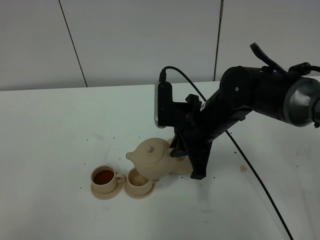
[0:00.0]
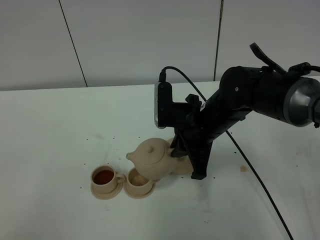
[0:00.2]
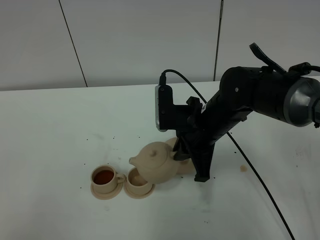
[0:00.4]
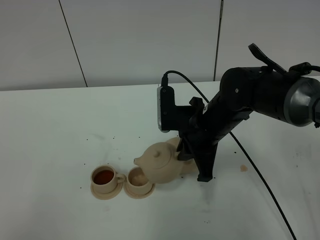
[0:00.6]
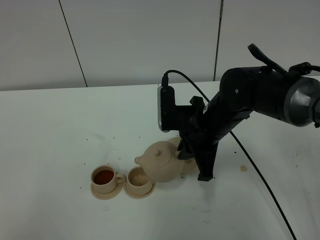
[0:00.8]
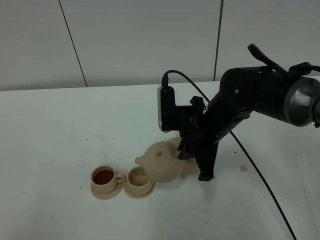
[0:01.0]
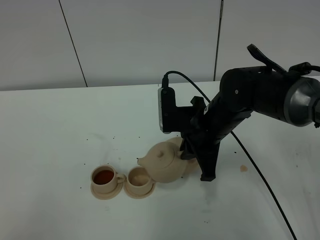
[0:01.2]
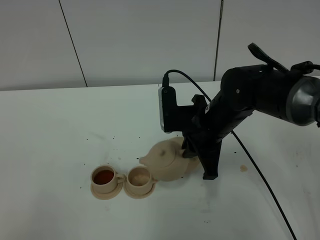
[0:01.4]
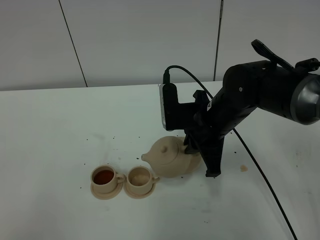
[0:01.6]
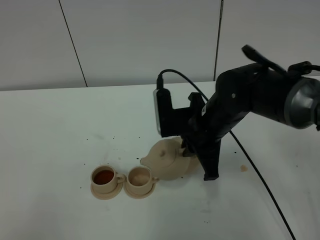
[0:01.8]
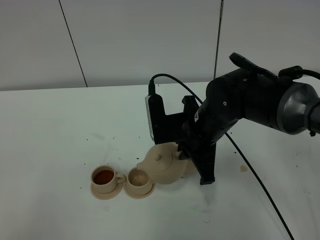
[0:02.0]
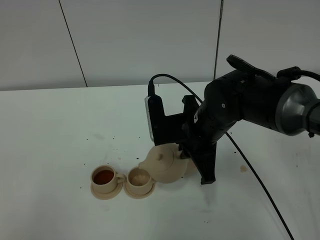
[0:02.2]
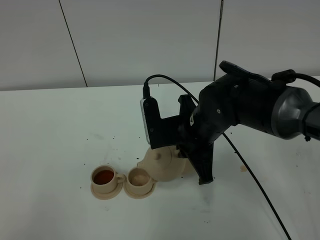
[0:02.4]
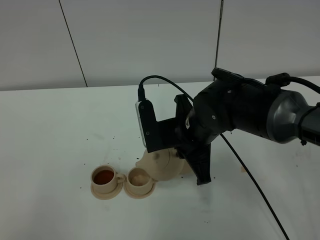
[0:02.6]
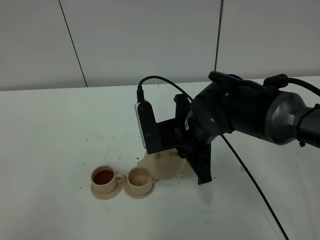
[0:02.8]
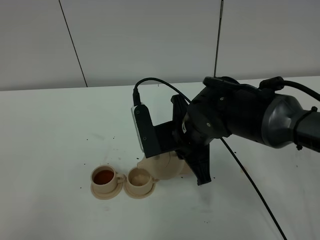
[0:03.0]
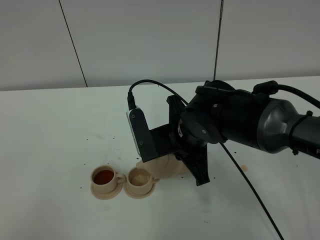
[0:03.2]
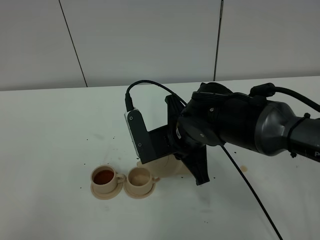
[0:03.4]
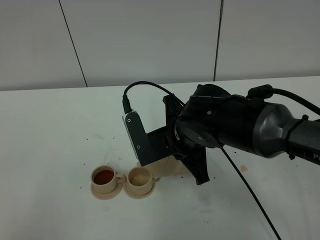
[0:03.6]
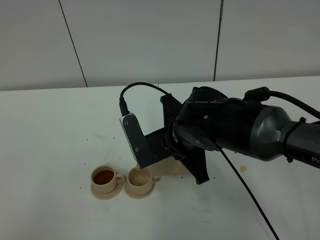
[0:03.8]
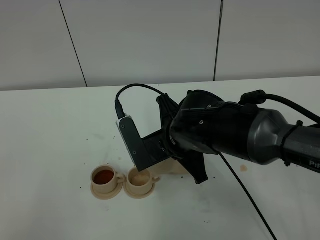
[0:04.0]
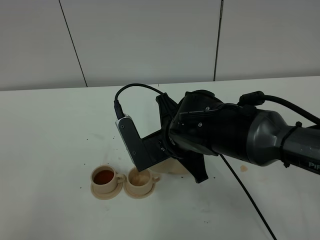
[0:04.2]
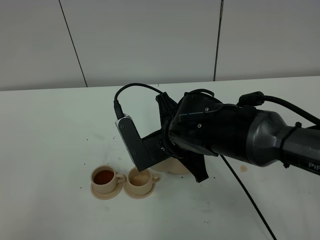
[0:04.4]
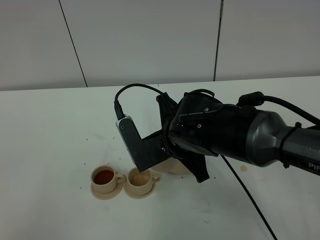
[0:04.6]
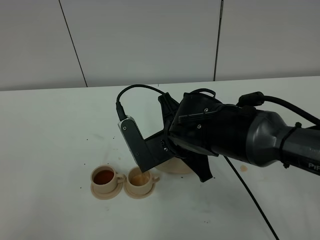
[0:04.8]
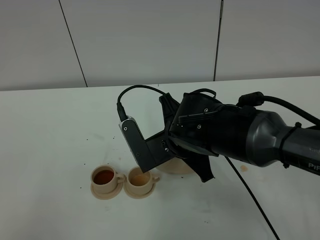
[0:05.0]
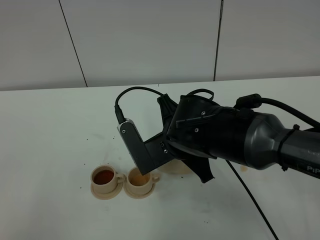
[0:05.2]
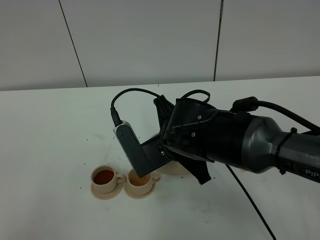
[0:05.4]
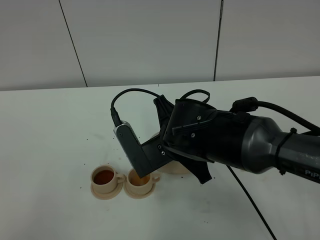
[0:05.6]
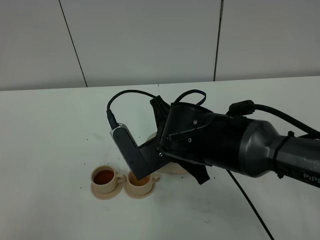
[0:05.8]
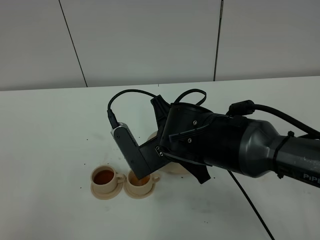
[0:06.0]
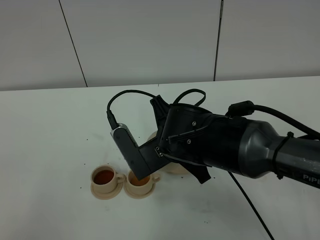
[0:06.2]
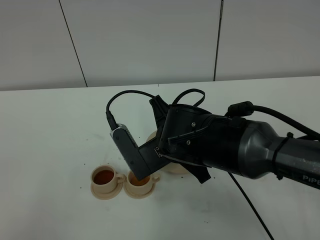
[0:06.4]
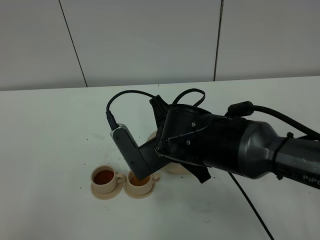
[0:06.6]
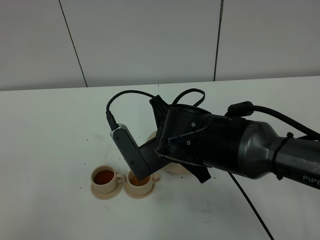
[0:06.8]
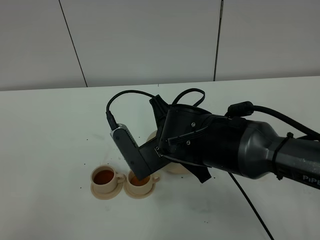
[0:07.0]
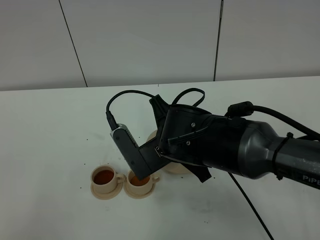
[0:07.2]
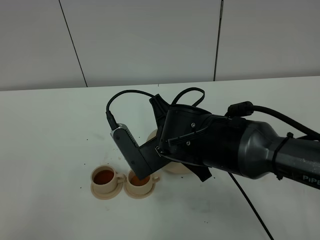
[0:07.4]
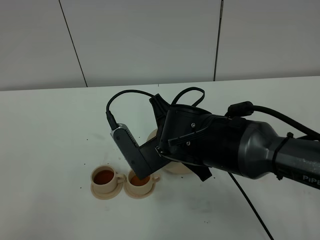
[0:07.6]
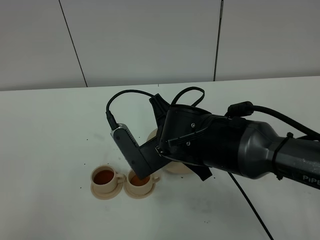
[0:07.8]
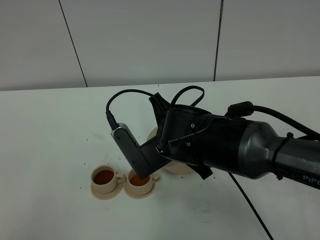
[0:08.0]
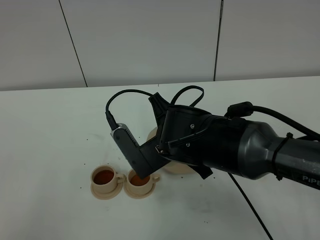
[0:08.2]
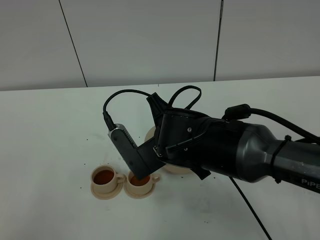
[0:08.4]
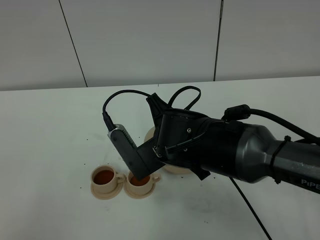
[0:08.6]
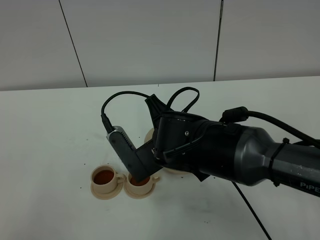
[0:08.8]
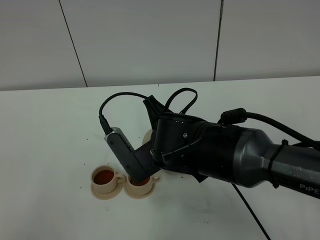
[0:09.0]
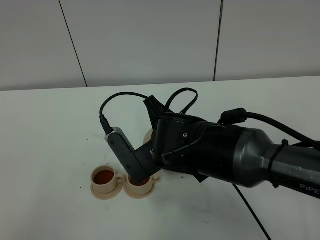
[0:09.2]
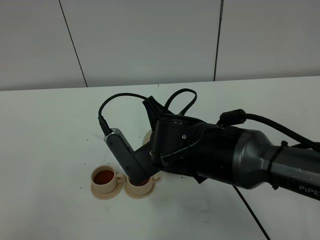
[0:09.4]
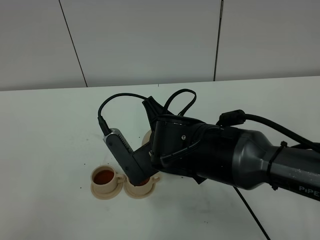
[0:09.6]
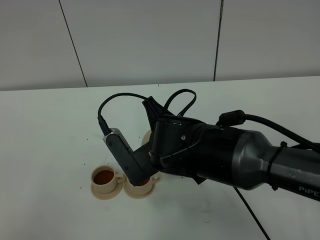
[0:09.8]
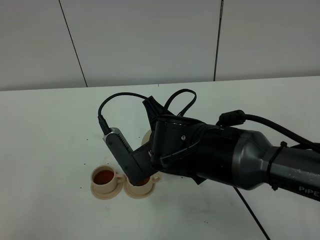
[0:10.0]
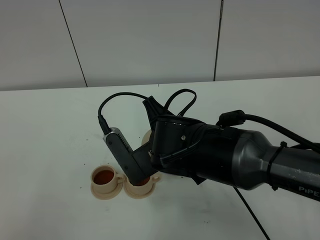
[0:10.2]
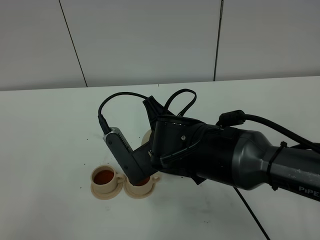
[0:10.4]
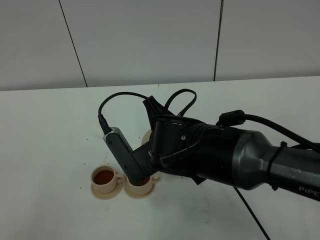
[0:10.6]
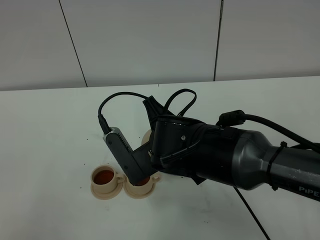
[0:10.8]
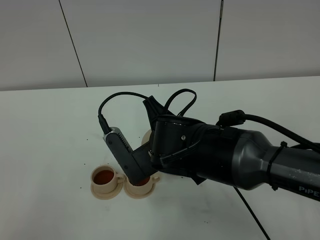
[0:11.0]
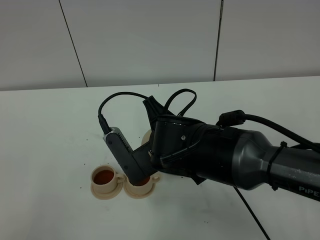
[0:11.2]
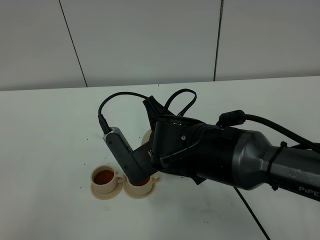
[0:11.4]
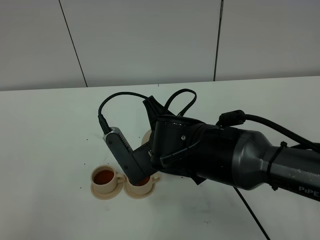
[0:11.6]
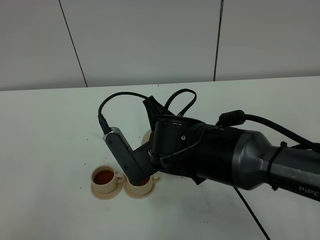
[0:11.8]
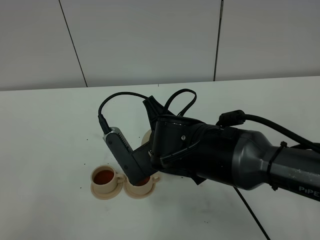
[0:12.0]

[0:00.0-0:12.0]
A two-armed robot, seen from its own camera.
Task of the whole recording: grasp the brown teapot and pour the tea into the two brown teacups one by one, put the brown teapot back in its original place.
0:00.0 to 0:01.6: The grippers stay close to where they were, moving slightly.
0:01.6 to 0:03.0: The right gripper shifts by about 5 cm.
0:03.0 to 0:04.4: The grippers stay close to where they were, moving slightly.
0:04.4 to 0:06.0: The grippers make only small movements.
0:06.0 to 0:07.6: Both grippers stay put.
0:07.6 to 0:09.0: The two grippers keep their place.
0:09.0 to 0:12.0: Neither gripper changes place.

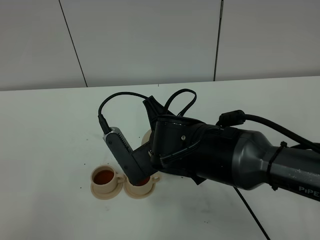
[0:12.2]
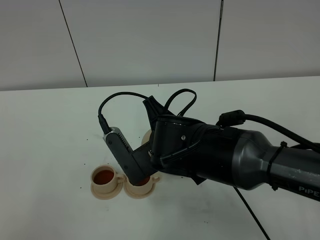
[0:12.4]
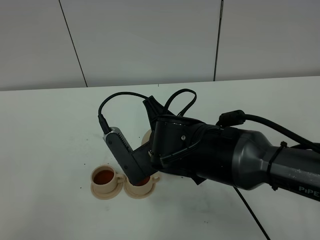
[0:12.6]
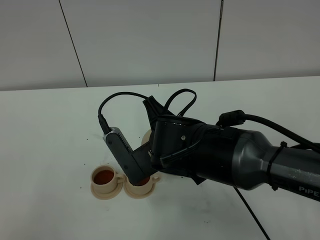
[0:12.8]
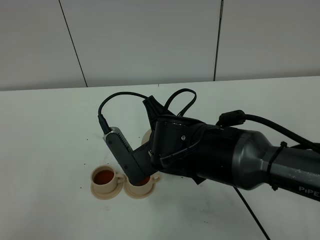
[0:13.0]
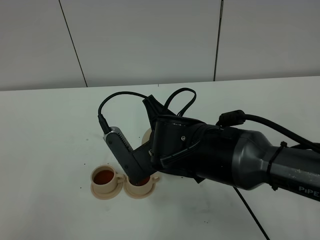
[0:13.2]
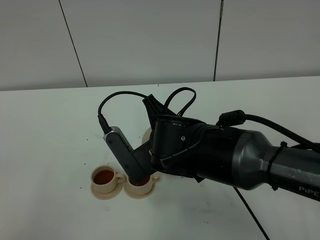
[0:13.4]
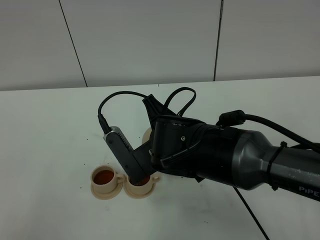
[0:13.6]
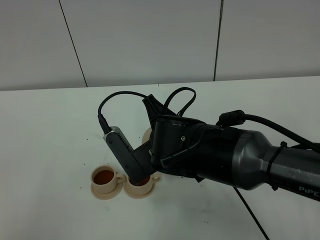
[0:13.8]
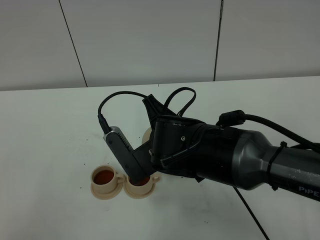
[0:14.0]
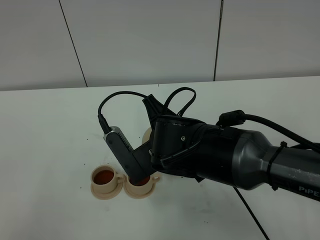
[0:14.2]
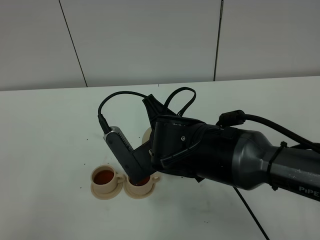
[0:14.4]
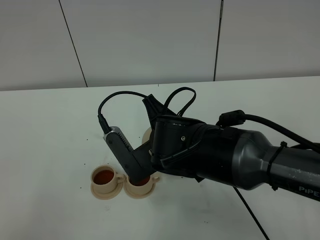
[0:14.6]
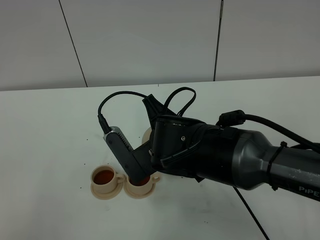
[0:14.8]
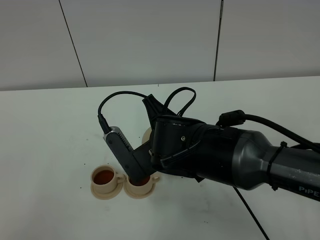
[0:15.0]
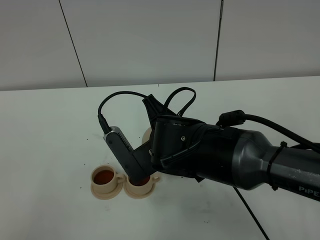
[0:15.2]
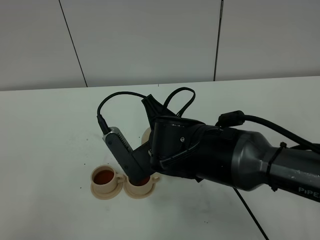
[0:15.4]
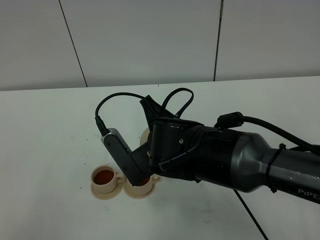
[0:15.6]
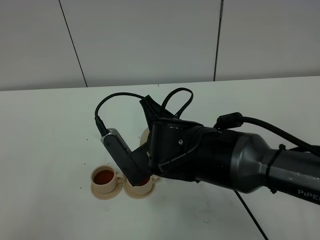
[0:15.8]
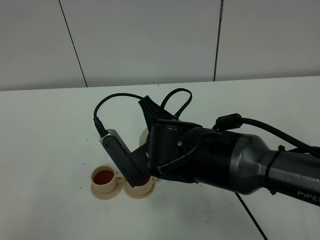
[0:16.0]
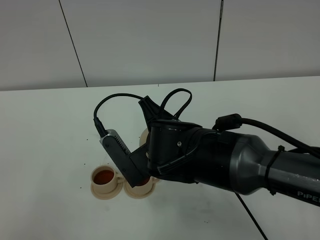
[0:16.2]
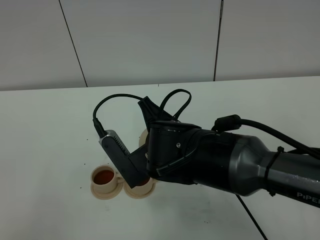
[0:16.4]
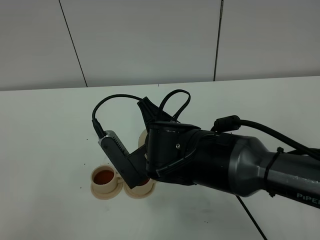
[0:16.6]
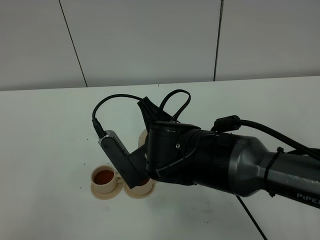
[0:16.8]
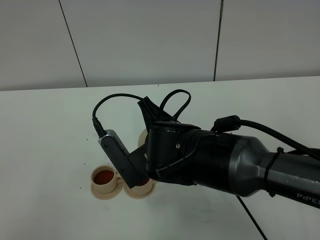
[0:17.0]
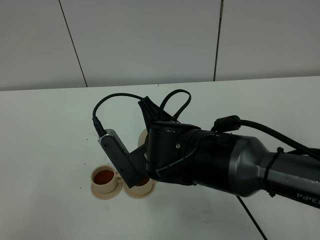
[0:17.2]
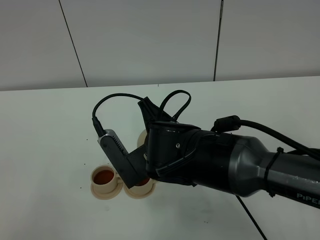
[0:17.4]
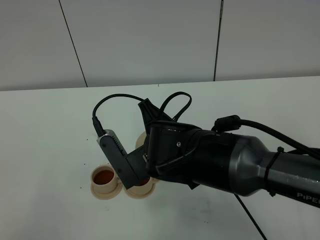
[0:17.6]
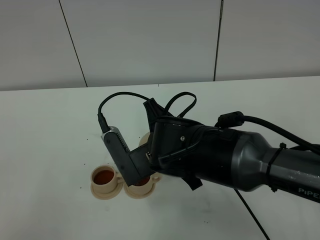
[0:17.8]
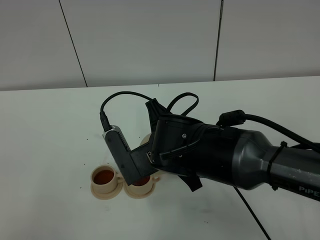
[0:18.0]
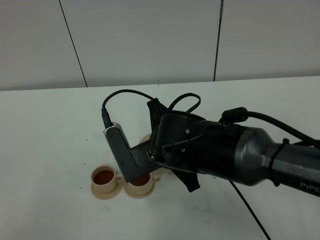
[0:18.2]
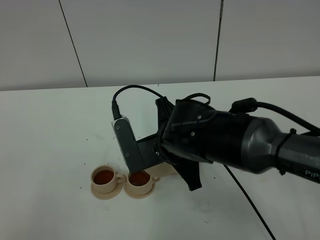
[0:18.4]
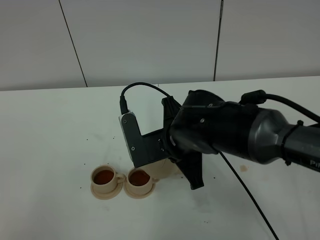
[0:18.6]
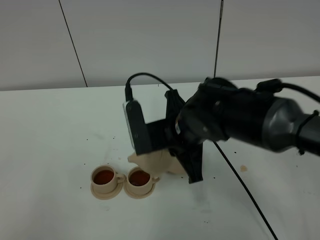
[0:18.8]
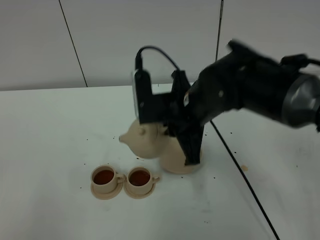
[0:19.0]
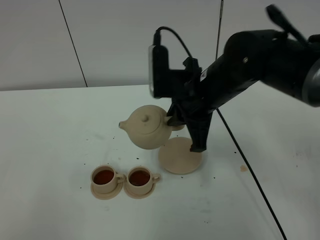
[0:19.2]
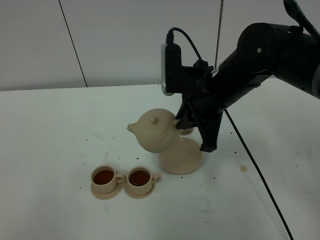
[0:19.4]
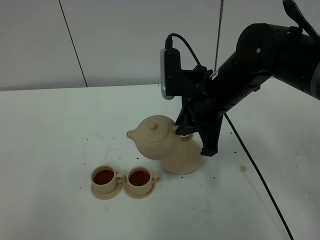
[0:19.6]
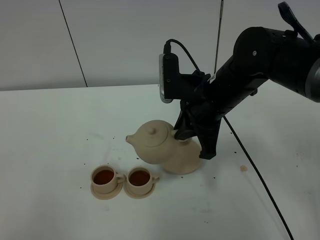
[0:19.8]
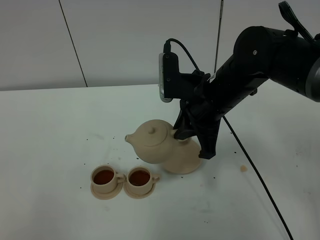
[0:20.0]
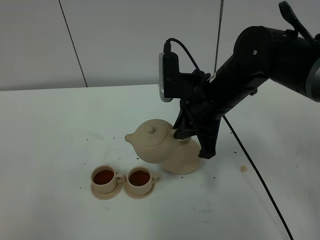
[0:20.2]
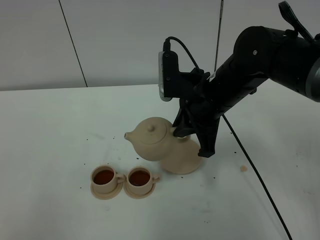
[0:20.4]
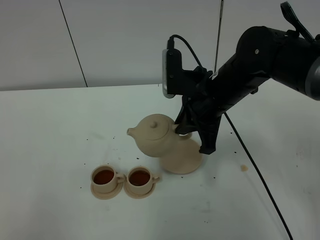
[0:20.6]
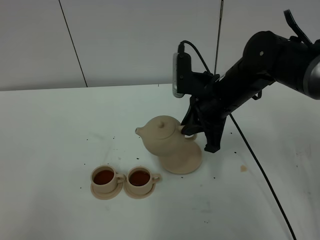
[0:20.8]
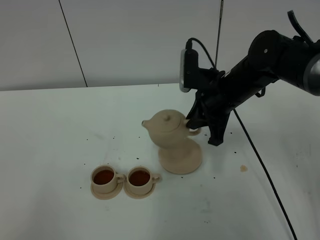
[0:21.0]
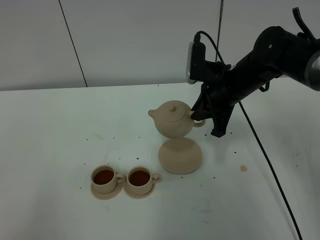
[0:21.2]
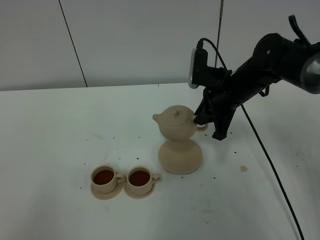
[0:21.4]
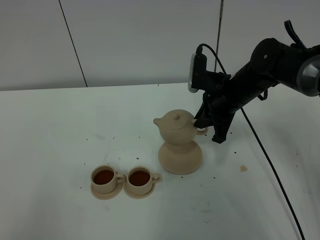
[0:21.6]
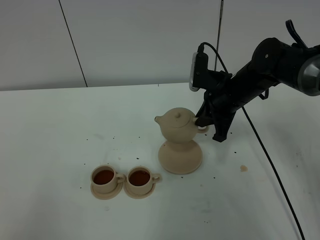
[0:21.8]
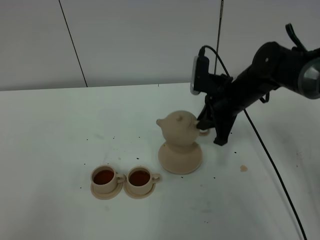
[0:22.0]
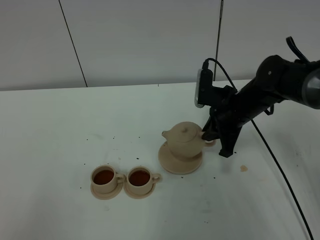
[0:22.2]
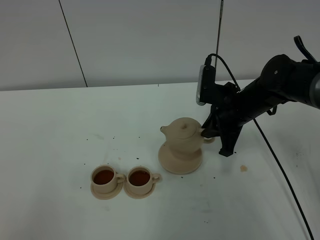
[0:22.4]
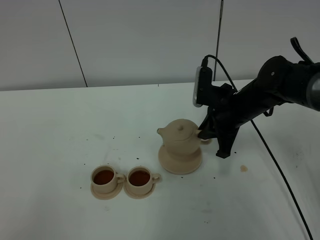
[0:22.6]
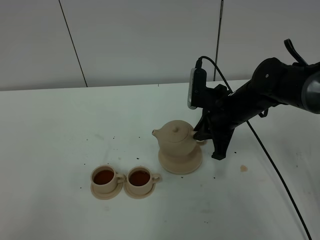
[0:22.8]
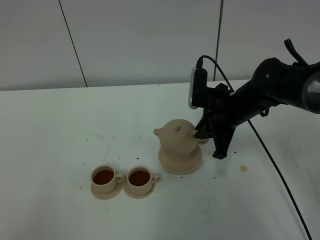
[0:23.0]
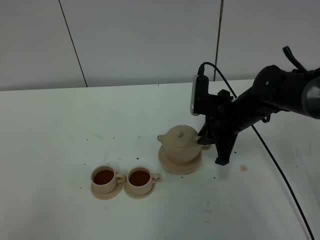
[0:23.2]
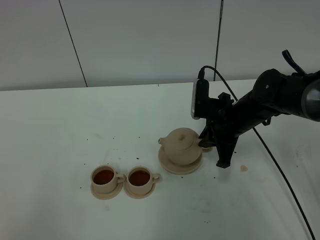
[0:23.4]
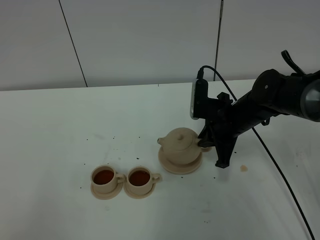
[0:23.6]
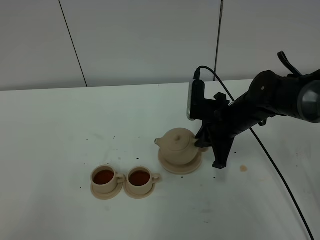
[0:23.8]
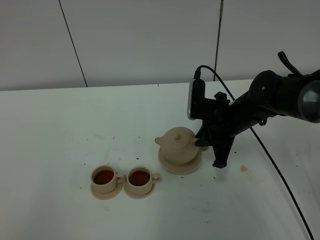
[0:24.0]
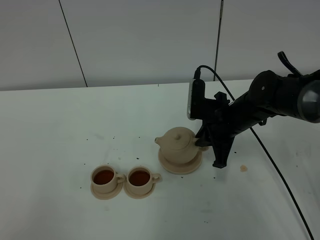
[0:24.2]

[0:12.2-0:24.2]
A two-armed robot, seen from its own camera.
Task of the whole recording: grasp the brown teapot and pour the tea into the two brown teacups one by one, put the brown teapot back in its original place.
Step, 0:12.2 to 0:18.4: Pour tea into the teacup with the right gripper.
0:12.2 to 0:16.6: Both grippers stay put.
0:16.6 to 0:18.2: The grippers stay close to where they were, moving slightly.
0:18.2 to 0:19.8: The right gripper goes approximately 10 cm to the right and forward.
0:19.8 to 0:21.2: The right gripper travels forward by roughly 10 cm.
0:21.2 to 0:22.6: The grippers stay close to where they were, moving slightly.
0:22.6 to 0:24.2: The grippers move only a little.
